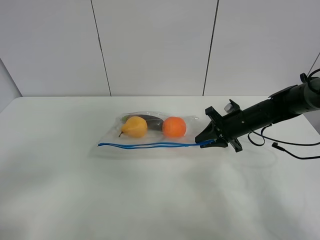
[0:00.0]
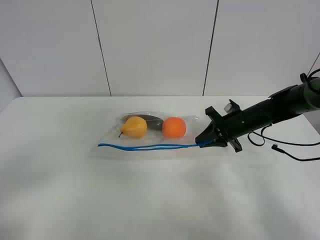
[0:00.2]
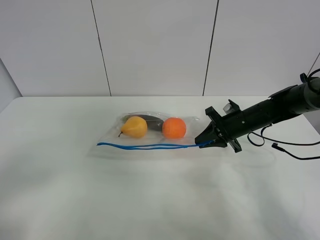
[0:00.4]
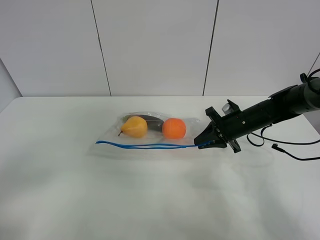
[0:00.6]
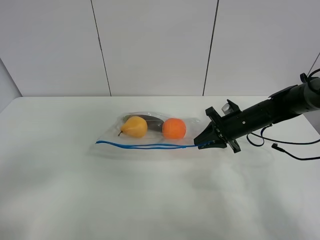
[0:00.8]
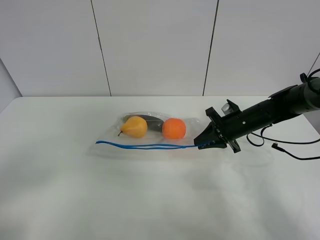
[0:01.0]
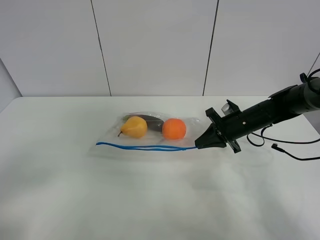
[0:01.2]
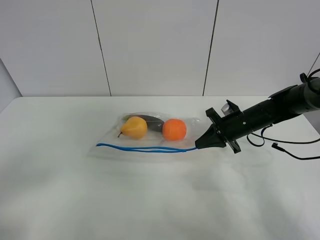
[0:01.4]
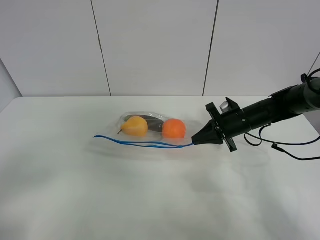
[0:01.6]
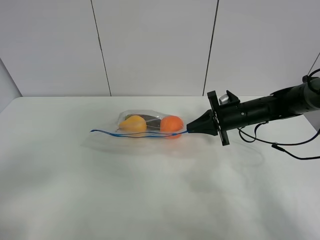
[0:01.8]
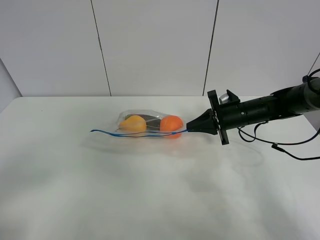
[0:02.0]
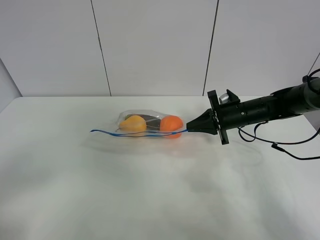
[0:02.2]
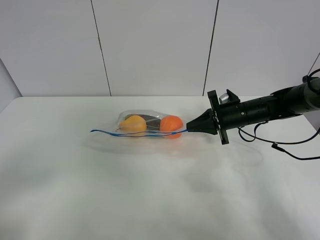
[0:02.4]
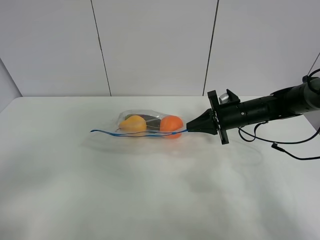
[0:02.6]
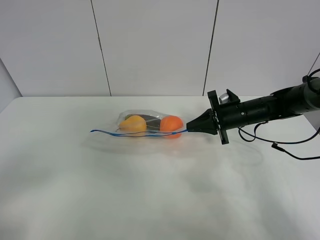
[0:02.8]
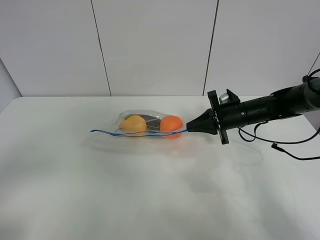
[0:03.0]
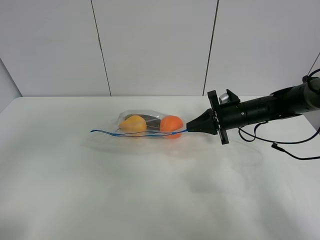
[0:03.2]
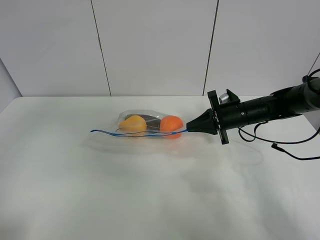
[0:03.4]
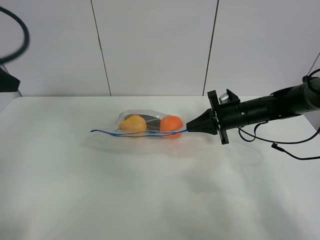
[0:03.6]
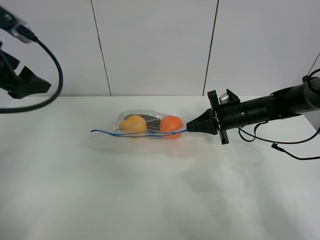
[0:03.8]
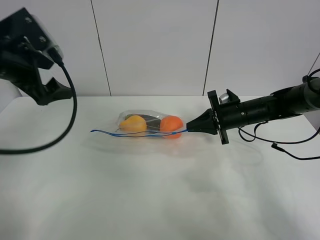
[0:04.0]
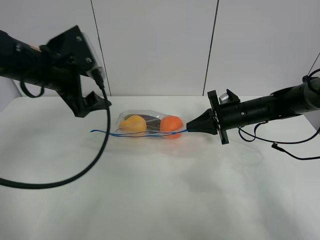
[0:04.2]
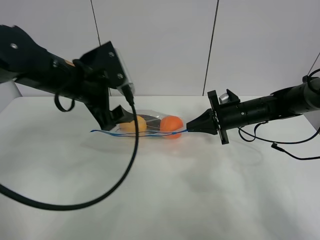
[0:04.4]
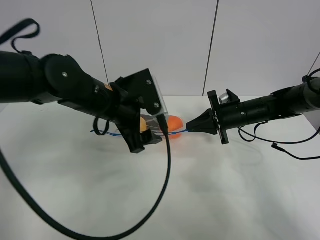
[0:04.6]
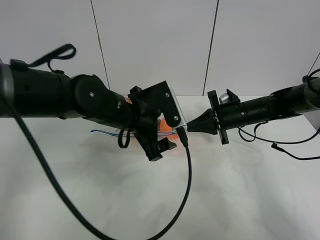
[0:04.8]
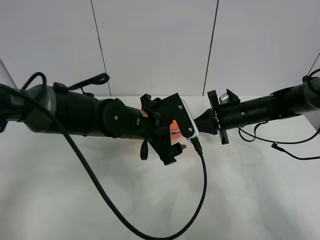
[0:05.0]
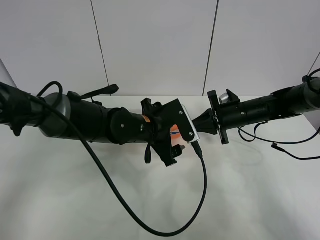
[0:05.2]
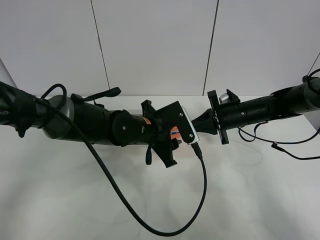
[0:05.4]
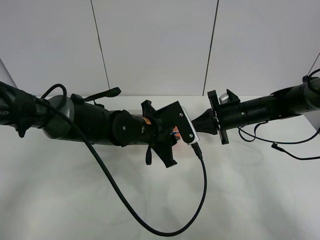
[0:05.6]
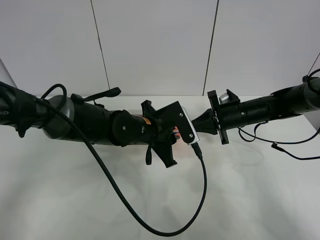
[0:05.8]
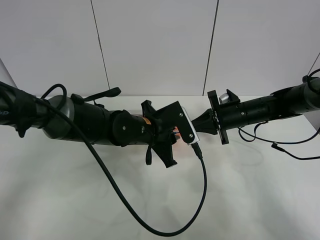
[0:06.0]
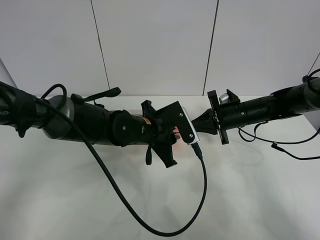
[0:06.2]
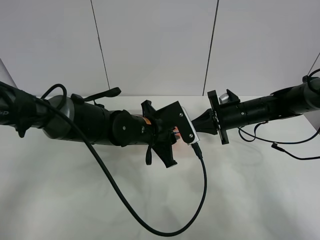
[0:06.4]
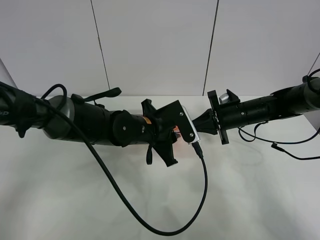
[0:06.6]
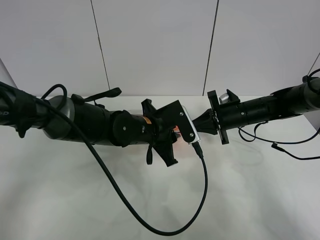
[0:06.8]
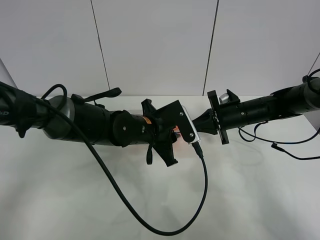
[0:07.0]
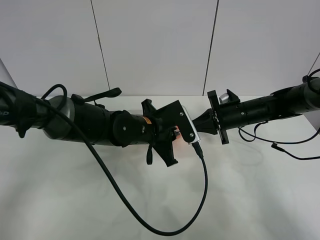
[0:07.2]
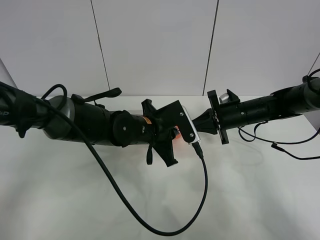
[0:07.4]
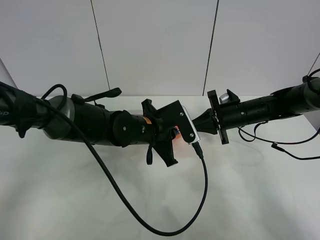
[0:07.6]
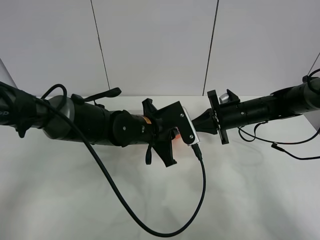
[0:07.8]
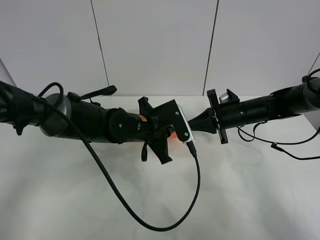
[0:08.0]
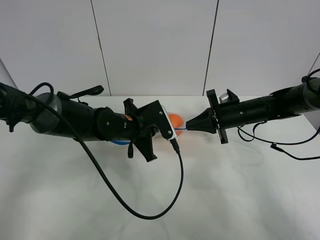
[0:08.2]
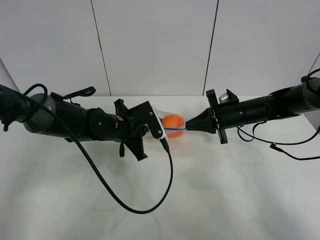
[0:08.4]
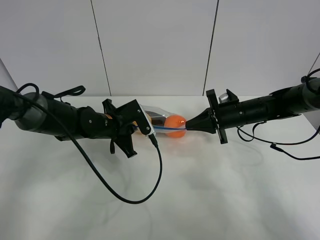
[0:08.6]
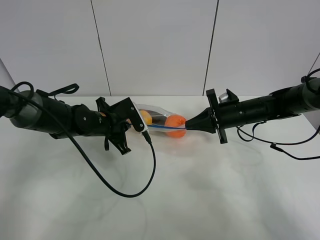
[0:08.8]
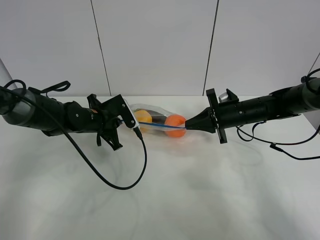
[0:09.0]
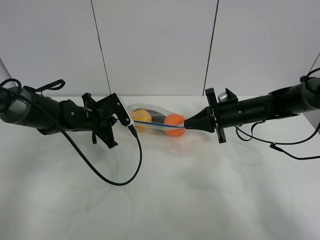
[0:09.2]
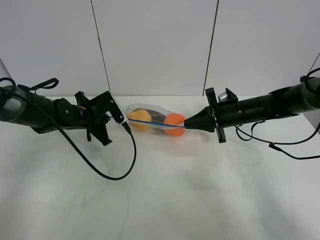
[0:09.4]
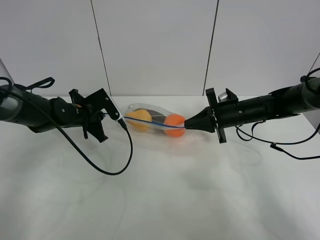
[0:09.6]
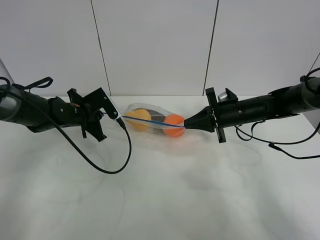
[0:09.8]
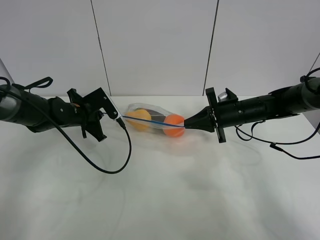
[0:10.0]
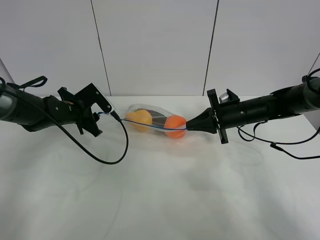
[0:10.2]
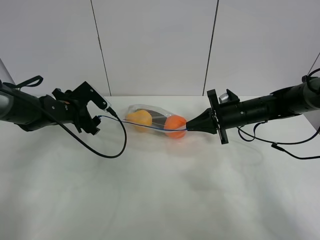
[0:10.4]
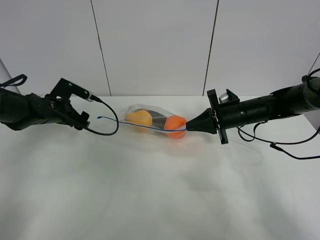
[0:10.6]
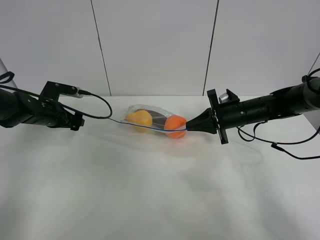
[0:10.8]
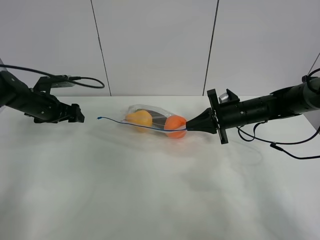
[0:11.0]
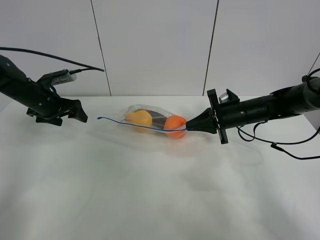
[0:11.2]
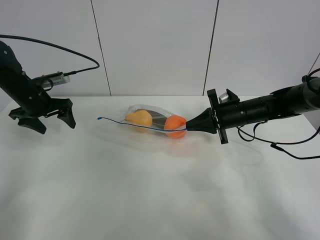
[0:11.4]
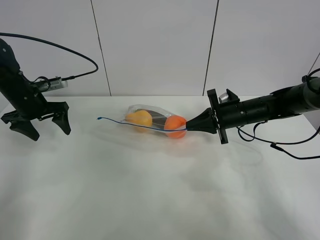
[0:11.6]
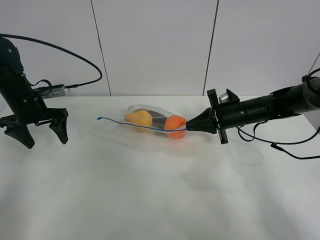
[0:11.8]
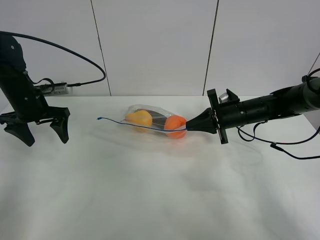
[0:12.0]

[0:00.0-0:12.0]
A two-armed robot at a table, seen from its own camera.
Step, 0:01.4 to 0:02.0: Lift the fruit bag with your right gripper.
Step, 0:02.2 to 0:10.2: Pull the fruit bag with left gripper.
0:00.0 to 0:03.0: There are only small adjustments of the grippers.
0:03.0 to 0:04.4: The left gripper heads forward and to the right, covering roughly 30 cm.
0:04.4 to 0:06.0: The left gripper travels downward and to the right by approximately 15 cm, and closes its fingers.
0:06.0 to 0:07.6: Both grippers stay put.
0:07.6 to 0:09.0: The left gripper goes about 15 cm to the left.
0:09.0 to 0:10.4: The left gripper moves to the left, some 10 cm, and opens.
0:10.4 to 0:12.0: The left gripper shifts roughly 10 cm upward and to the left.

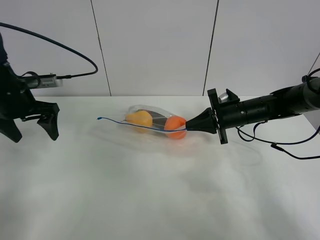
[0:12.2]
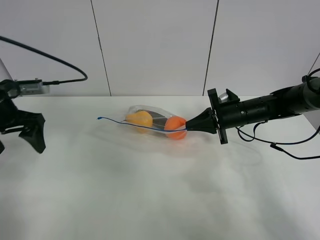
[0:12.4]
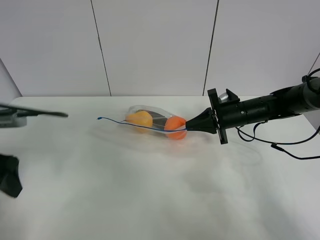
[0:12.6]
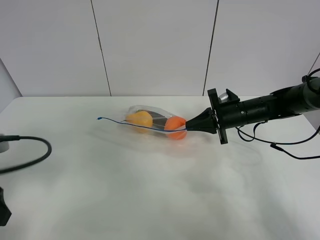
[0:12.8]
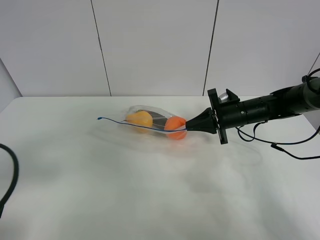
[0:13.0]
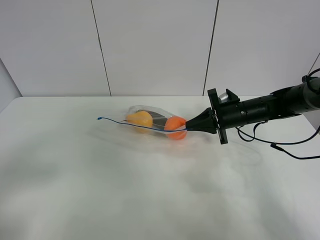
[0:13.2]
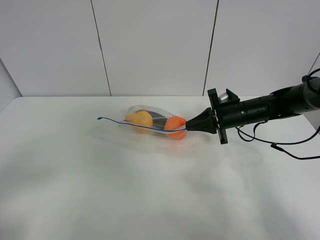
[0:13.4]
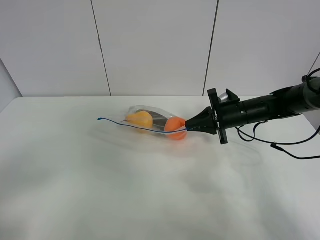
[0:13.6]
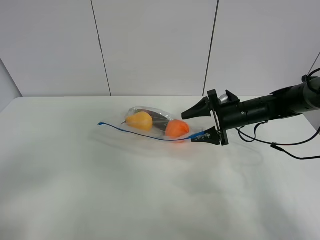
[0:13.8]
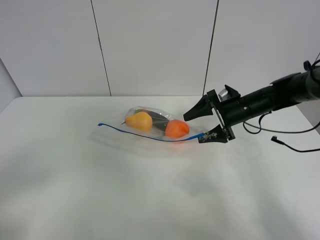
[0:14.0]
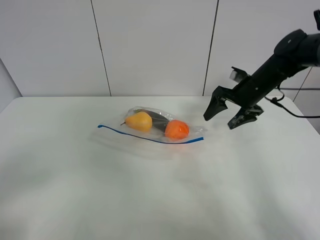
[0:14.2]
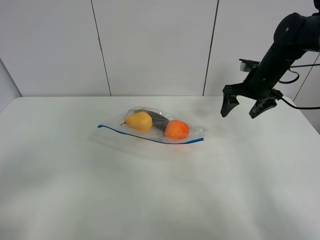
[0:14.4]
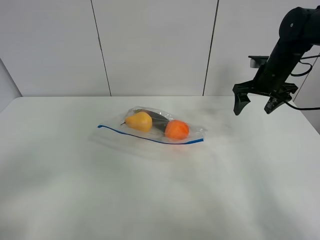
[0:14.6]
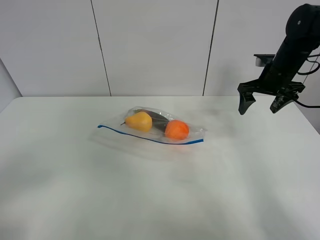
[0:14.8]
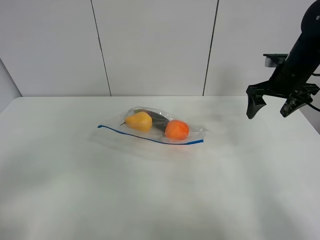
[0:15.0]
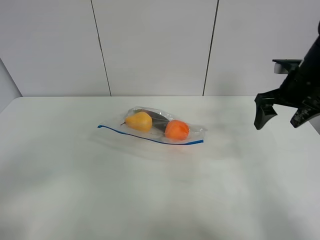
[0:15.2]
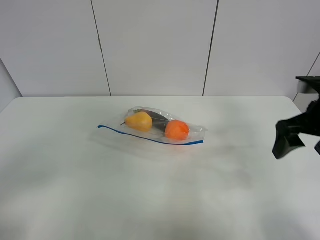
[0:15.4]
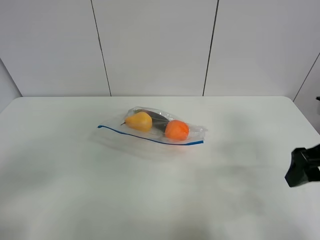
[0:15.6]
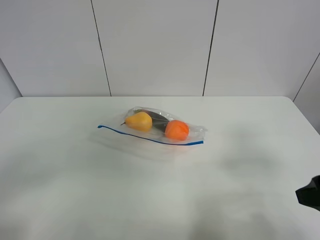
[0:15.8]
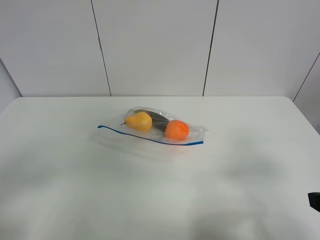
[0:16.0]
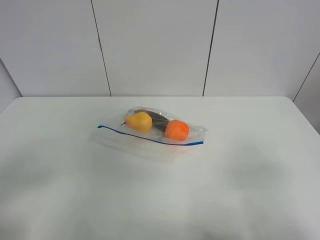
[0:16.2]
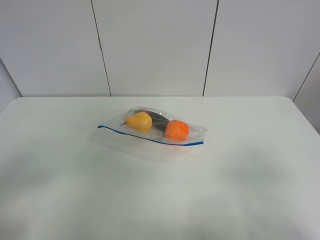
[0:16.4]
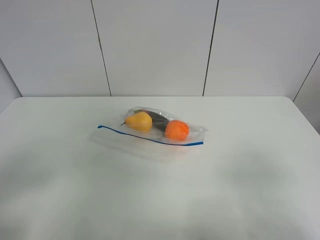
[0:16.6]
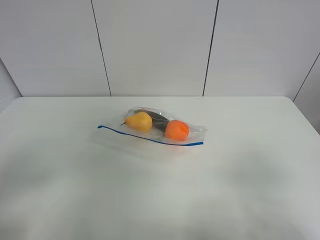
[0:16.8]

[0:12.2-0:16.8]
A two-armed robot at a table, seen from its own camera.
0:12.2 to 0:13.8: The right gripper opens its fingers, while the left gripper is displaced backward by about 35 cm.
0:13.8 to 0:15.2: The right gripper shifts about 15 cm upward and to the right.
0:15.2 to 0:16.8: The right gripper heads backward, covering some 35 cm.

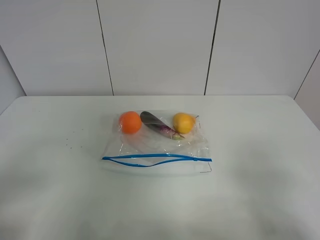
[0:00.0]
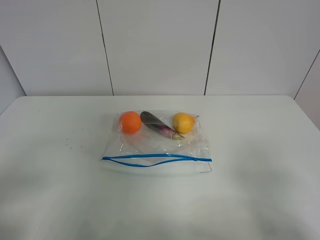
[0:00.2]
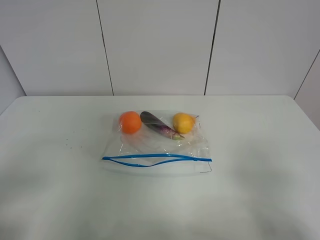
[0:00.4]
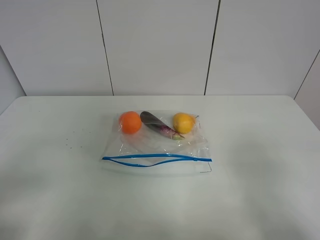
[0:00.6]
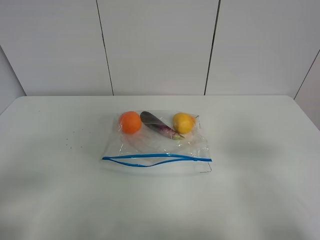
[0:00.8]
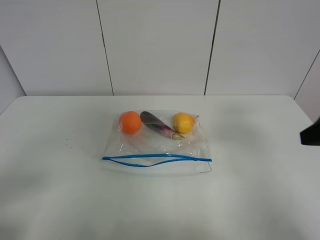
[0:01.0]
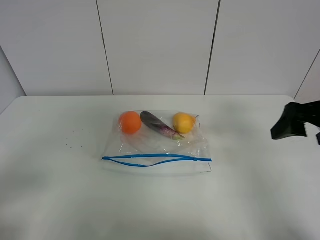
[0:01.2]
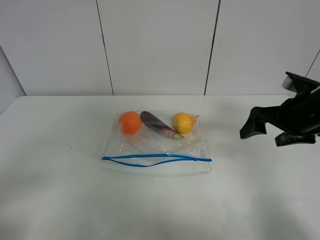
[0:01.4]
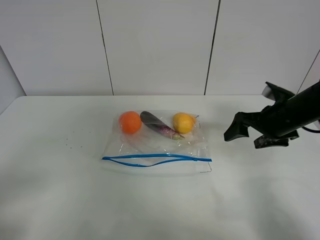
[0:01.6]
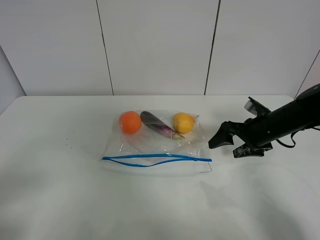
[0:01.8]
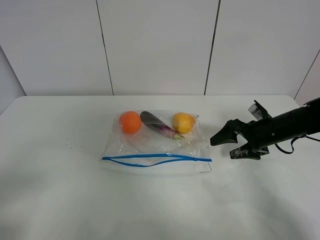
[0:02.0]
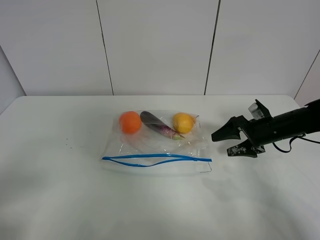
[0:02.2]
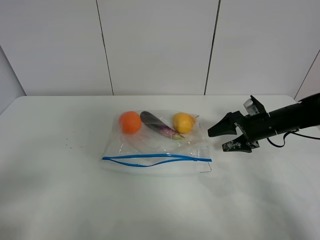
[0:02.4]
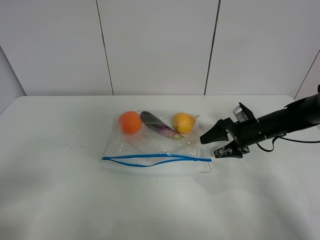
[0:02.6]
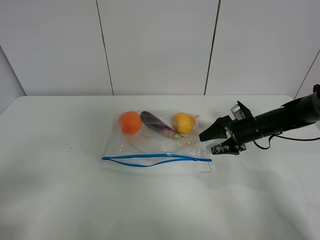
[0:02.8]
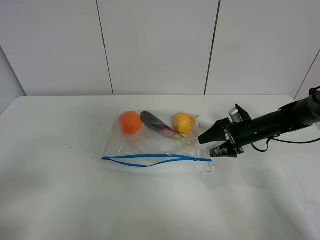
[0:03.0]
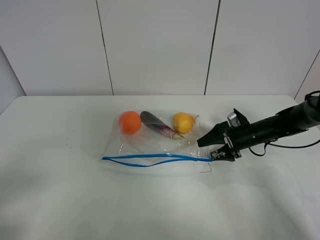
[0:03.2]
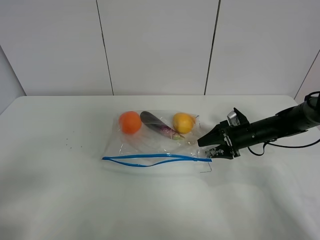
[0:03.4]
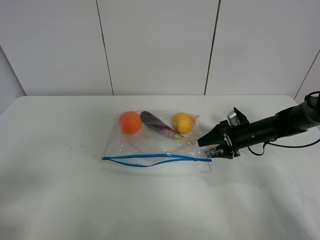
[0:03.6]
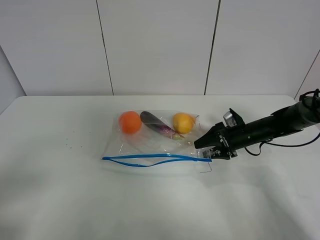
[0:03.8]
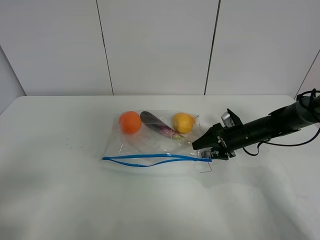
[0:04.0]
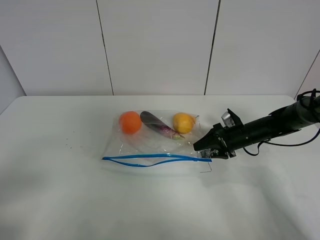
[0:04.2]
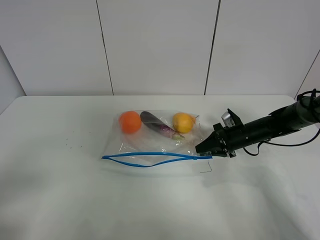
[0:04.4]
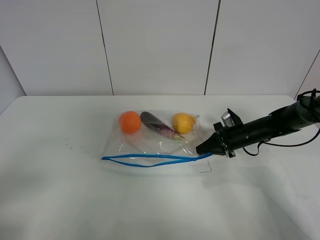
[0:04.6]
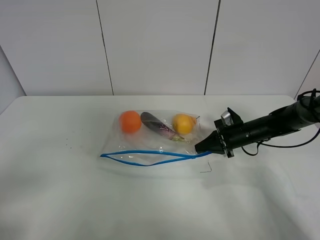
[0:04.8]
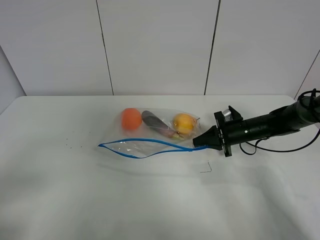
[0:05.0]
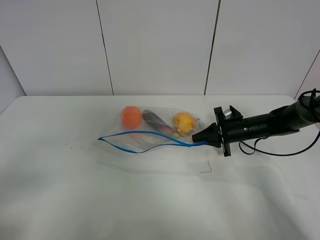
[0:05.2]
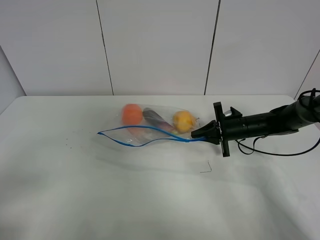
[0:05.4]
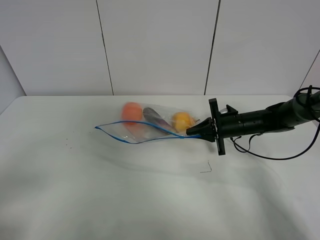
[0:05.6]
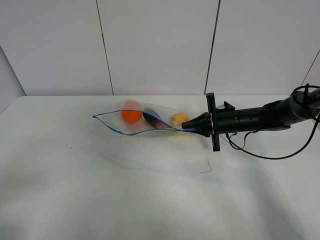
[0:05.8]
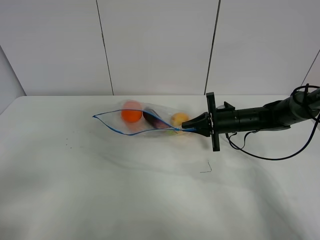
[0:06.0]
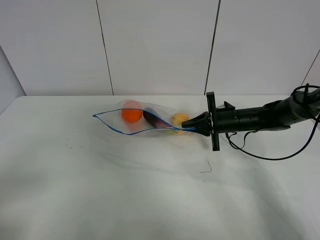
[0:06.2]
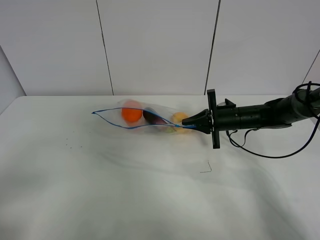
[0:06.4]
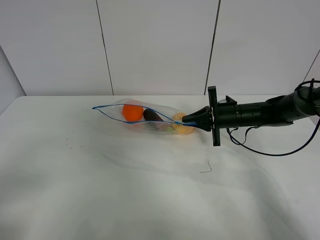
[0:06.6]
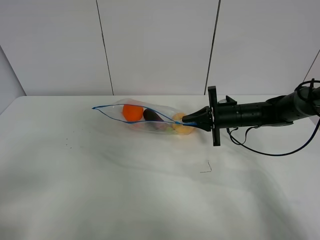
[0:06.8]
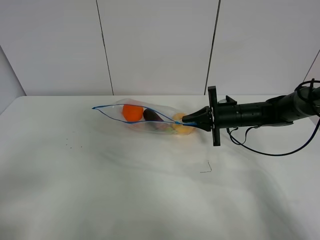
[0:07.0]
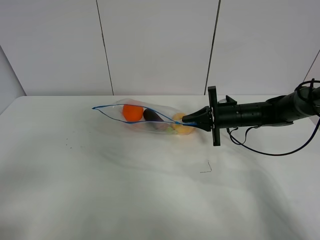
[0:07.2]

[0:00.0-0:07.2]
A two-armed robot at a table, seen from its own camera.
Step, 0:00.0 to 0:04.4: Grasp the fruit bag with right gripper.
Step, 0:04.6 to 0:06.8: Lift the fruit bag with your right gripper.
0:00.0 to 0:01.4: The right gripper is displaced forward by approximately 30 cm.
0:01.4 to 0:02.8: The right gripper moves downward and forward, roughly 15 cm.
0:02.8 to 0:04.4: The right gripper closes up.
0:04.4 to 0:05.8: The right gripper ends up some 5 cm from where it was.
0:05.8 to 0:07.2: The grippers make only small movements.
